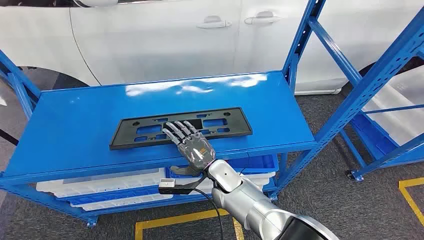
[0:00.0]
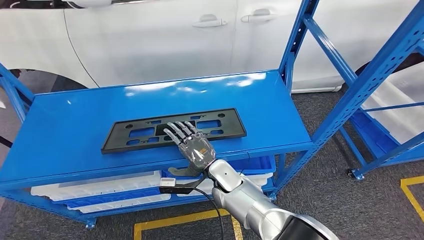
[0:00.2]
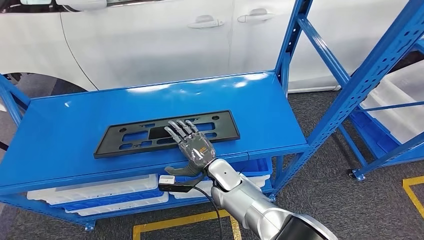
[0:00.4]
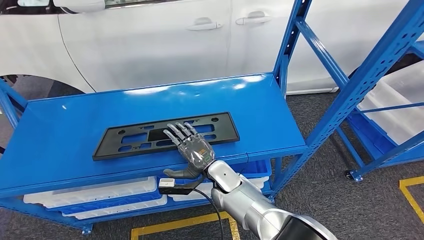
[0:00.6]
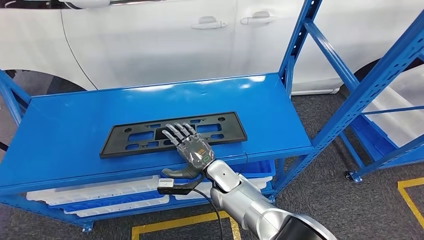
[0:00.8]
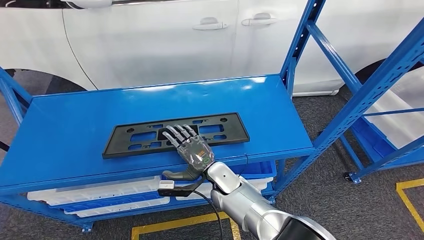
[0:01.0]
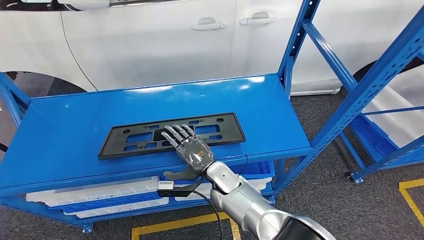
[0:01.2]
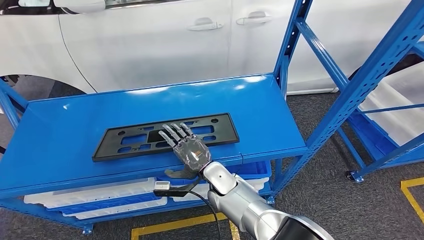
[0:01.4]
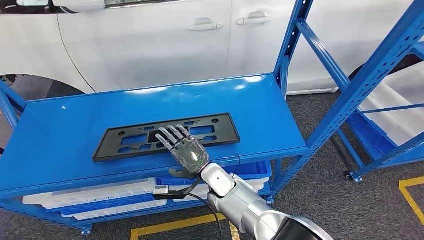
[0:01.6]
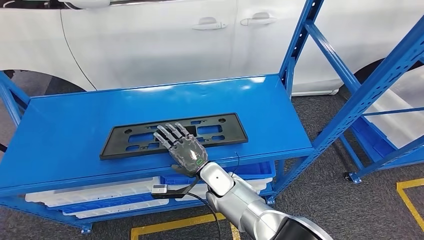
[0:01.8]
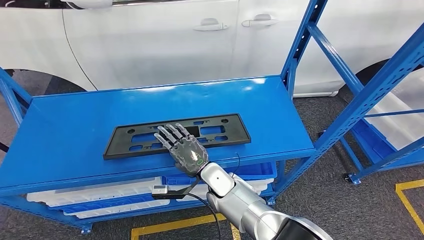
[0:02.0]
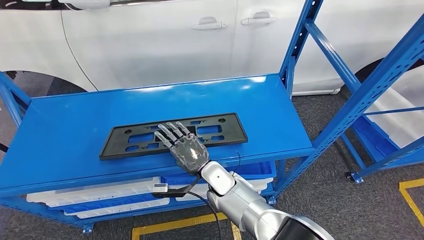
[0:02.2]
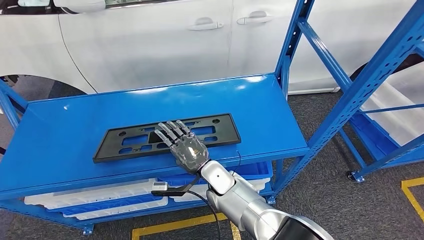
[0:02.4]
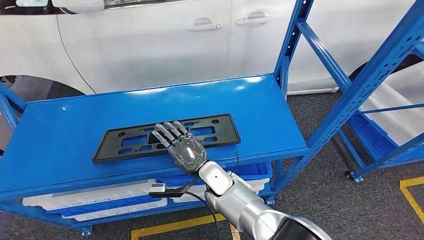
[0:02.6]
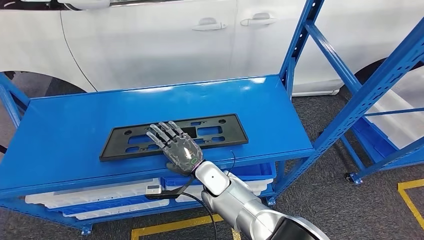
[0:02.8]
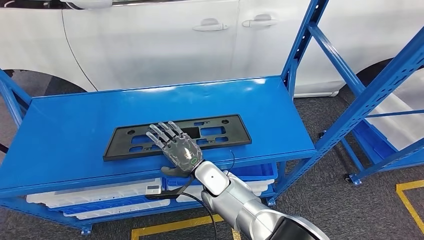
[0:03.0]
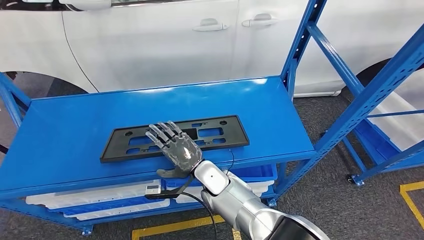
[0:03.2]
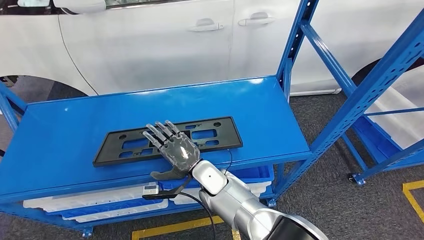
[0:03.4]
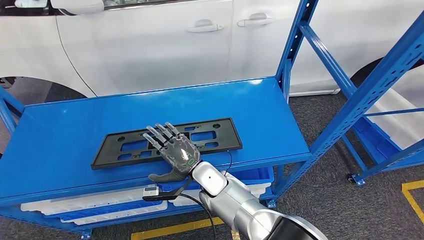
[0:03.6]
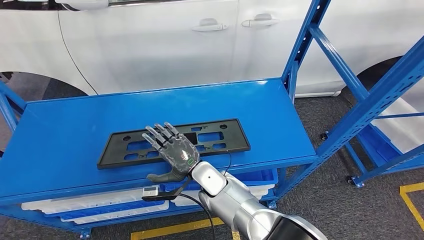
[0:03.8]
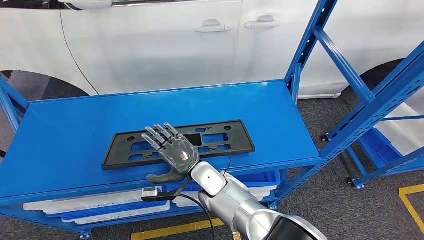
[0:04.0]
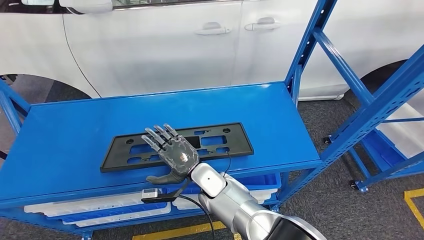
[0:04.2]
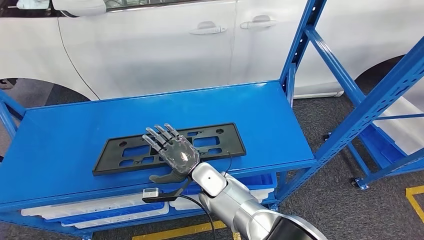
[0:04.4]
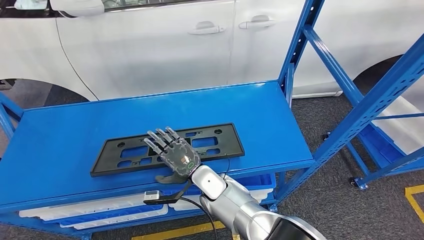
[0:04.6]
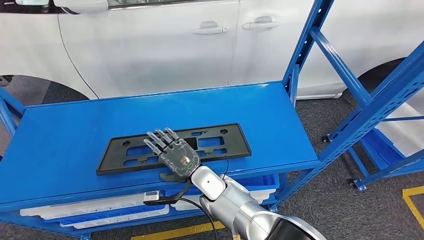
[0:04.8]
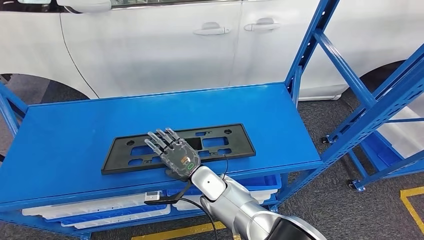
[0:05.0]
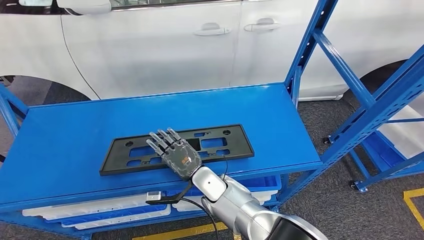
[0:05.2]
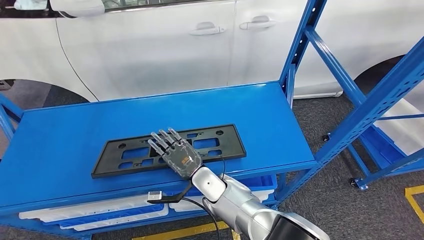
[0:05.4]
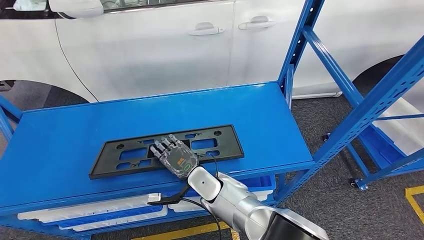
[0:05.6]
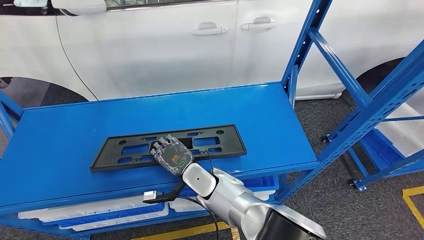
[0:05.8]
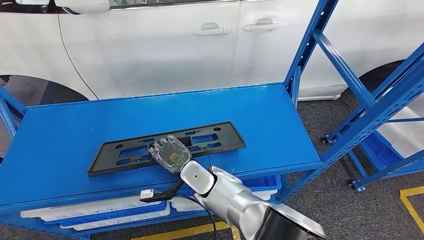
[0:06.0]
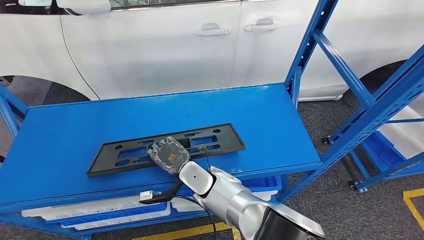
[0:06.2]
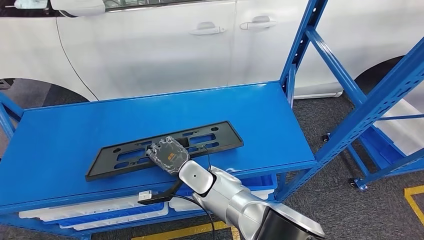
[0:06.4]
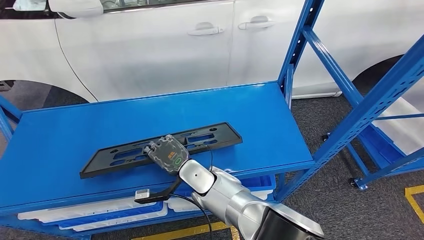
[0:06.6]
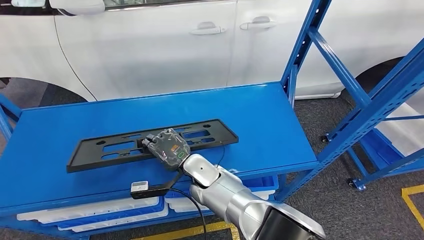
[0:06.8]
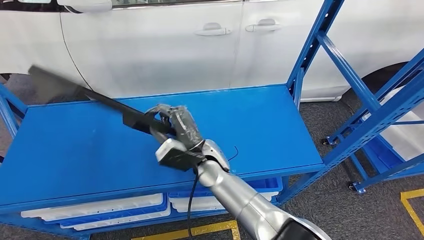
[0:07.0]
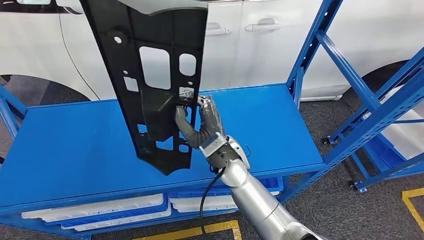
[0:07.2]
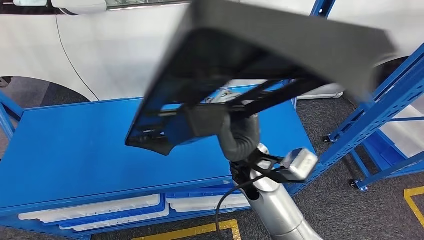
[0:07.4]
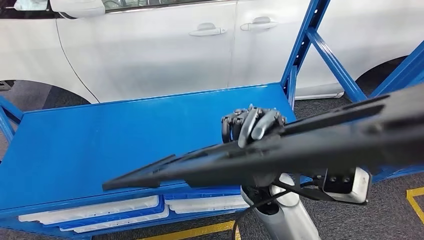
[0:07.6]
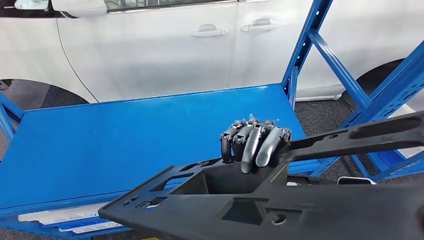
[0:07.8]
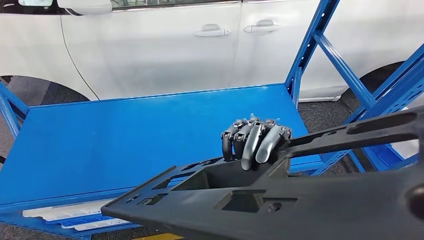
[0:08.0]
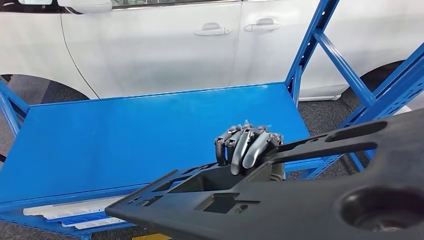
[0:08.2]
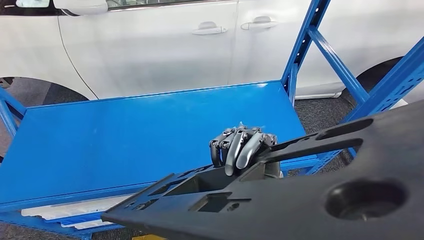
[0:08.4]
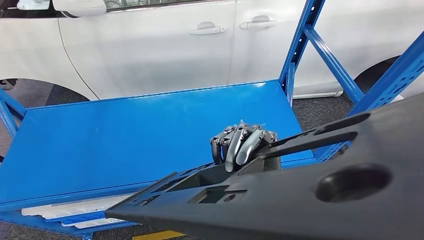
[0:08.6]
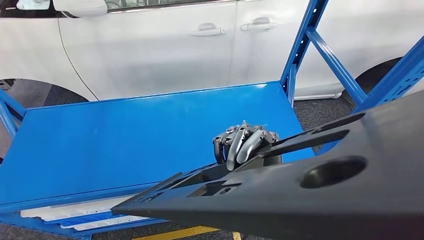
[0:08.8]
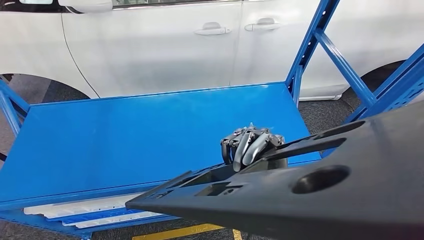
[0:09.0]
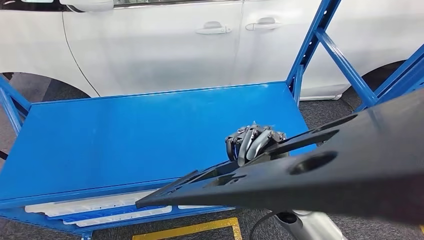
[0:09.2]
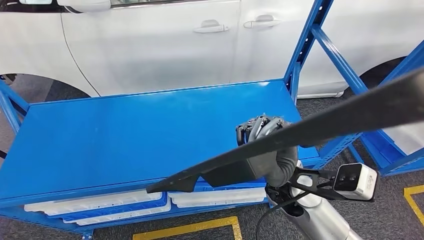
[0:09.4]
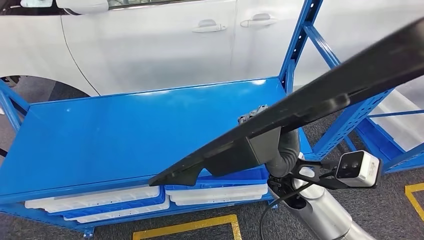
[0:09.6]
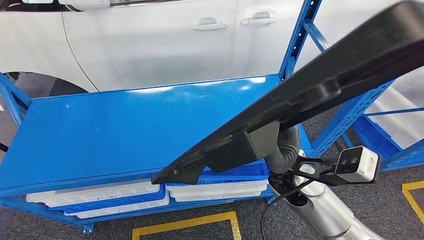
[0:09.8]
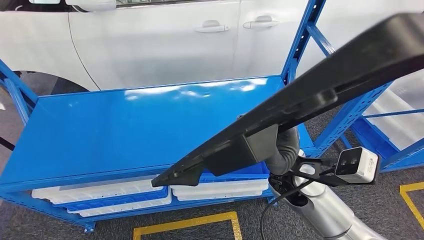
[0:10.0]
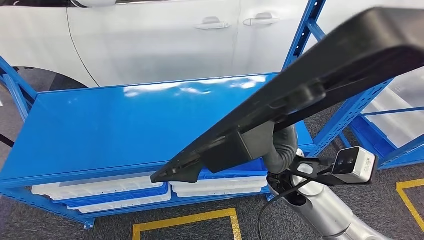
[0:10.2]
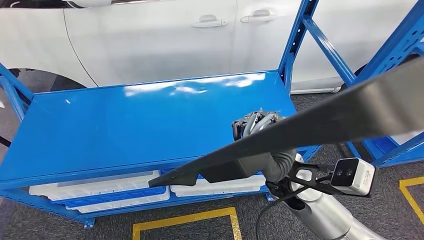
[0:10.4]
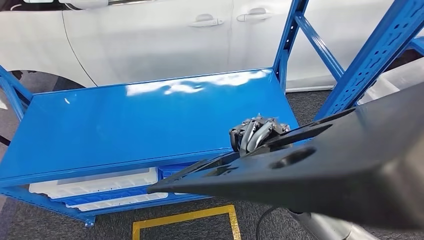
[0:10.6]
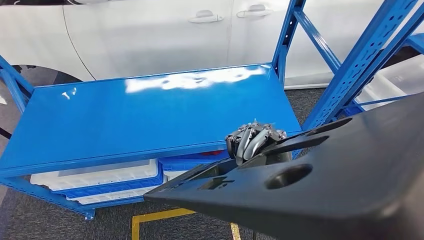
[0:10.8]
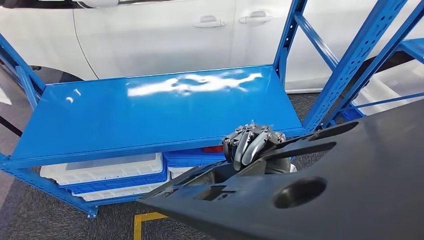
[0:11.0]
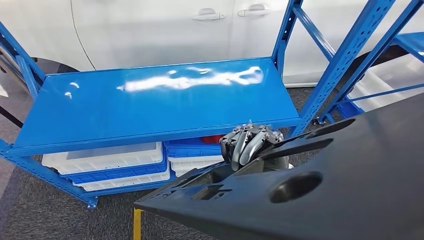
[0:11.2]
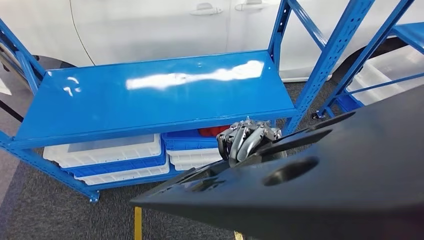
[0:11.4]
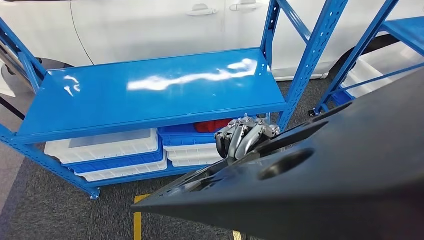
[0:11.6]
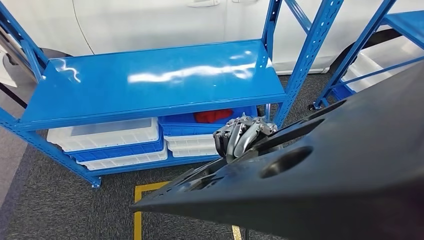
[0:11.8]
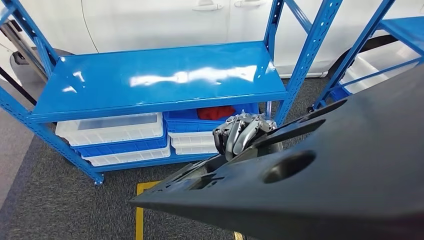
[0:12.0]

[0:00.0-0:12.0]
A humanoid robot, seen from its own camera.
Step, 0:00.0 to 0:10.0: Pick up the large material from the shelf.

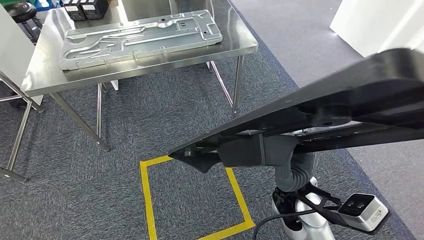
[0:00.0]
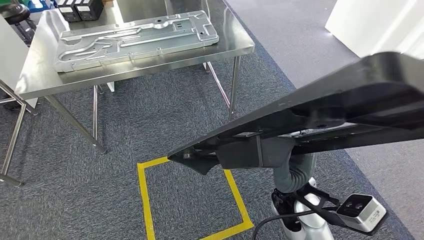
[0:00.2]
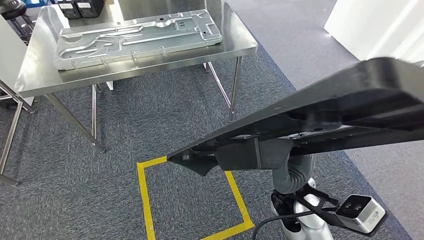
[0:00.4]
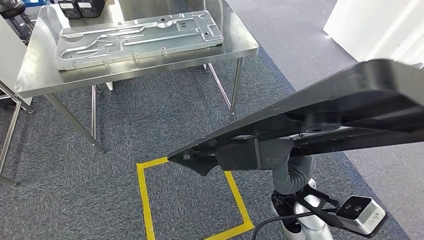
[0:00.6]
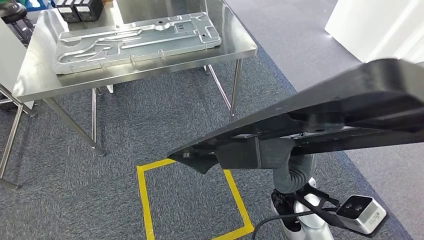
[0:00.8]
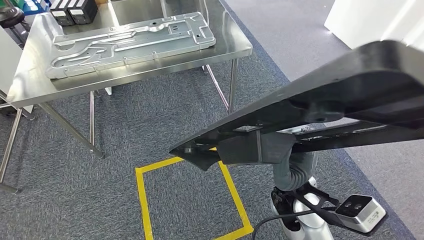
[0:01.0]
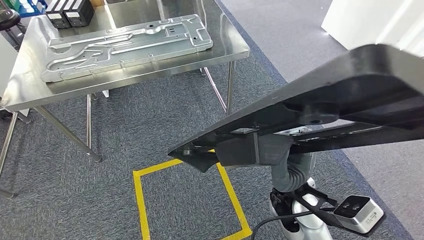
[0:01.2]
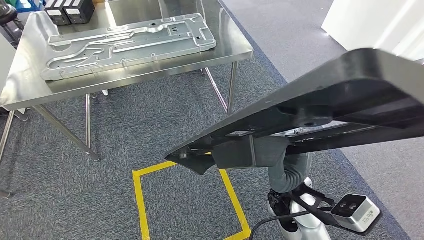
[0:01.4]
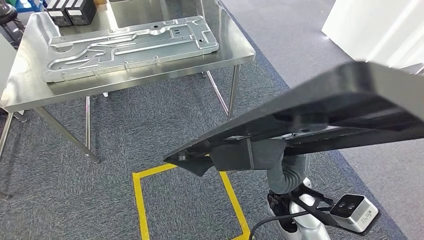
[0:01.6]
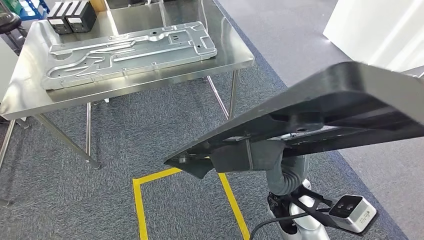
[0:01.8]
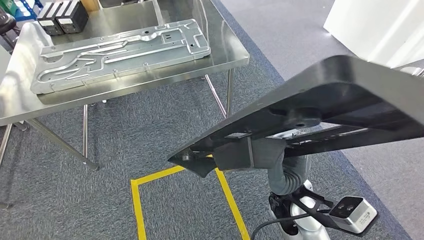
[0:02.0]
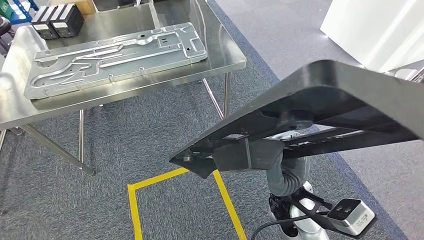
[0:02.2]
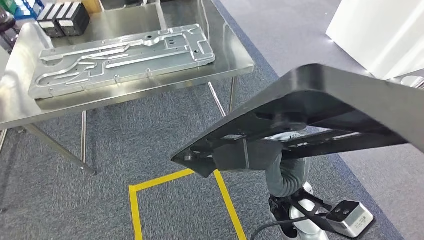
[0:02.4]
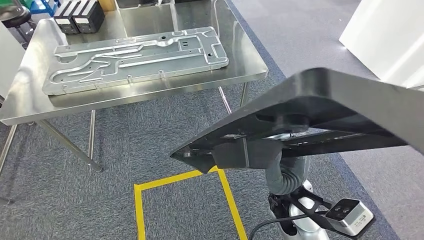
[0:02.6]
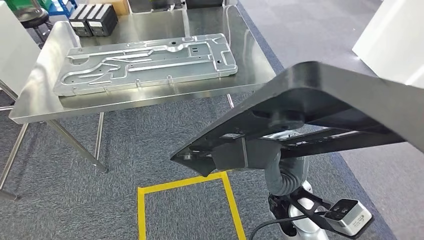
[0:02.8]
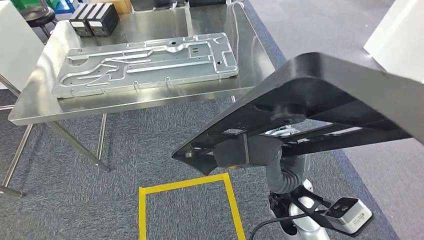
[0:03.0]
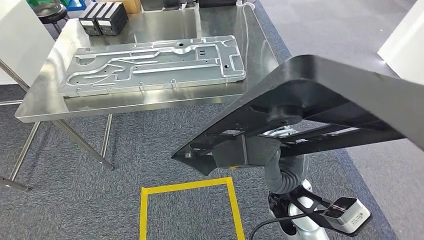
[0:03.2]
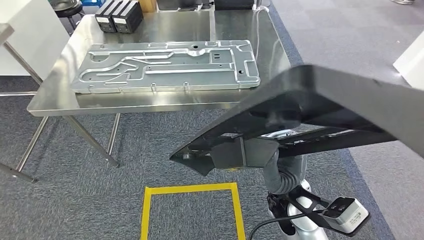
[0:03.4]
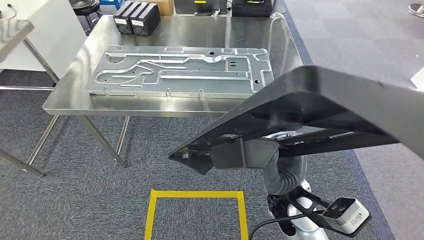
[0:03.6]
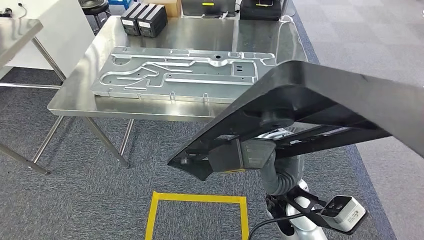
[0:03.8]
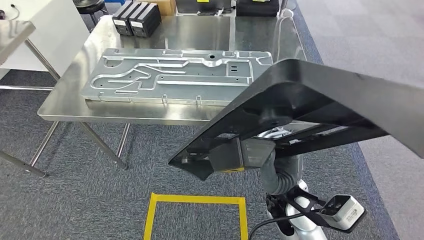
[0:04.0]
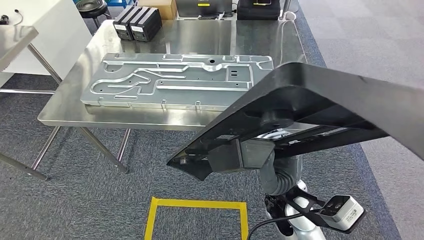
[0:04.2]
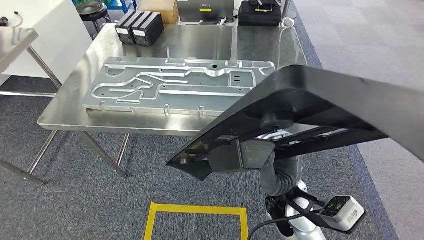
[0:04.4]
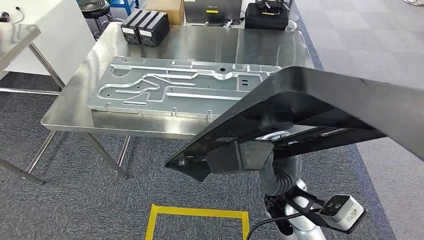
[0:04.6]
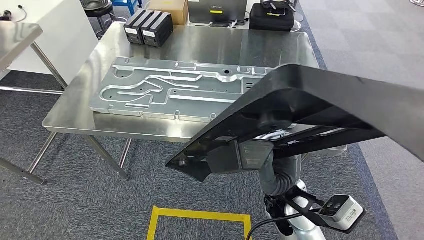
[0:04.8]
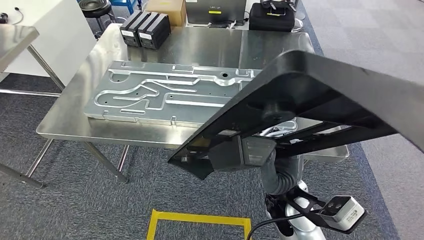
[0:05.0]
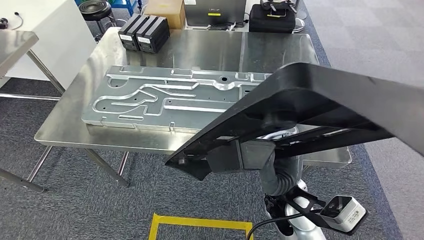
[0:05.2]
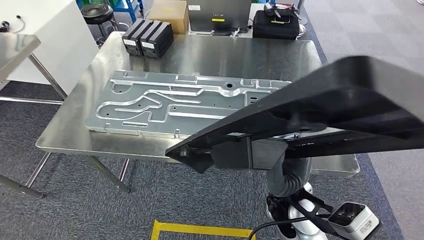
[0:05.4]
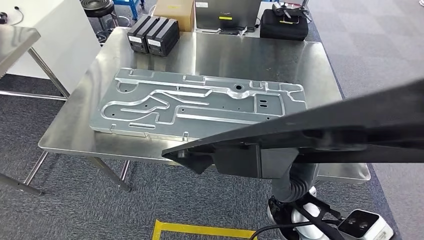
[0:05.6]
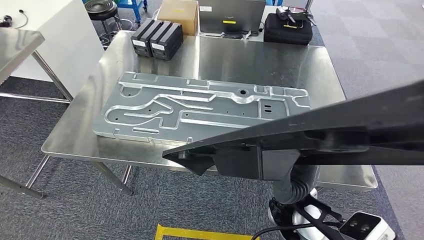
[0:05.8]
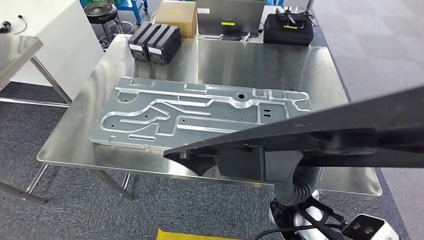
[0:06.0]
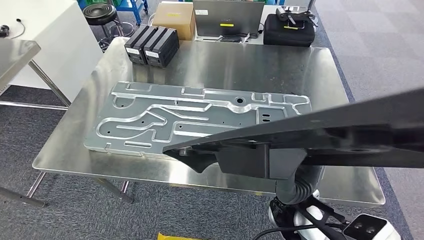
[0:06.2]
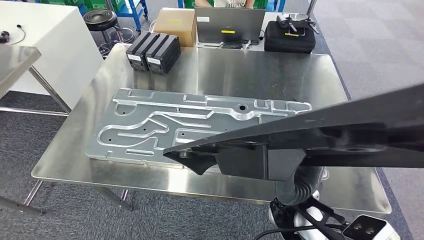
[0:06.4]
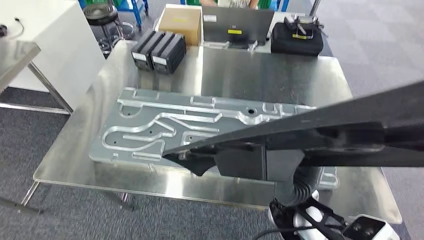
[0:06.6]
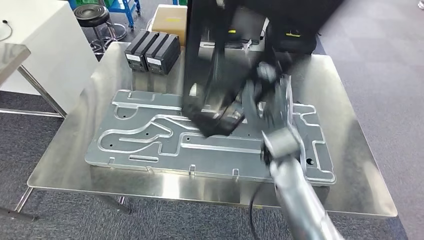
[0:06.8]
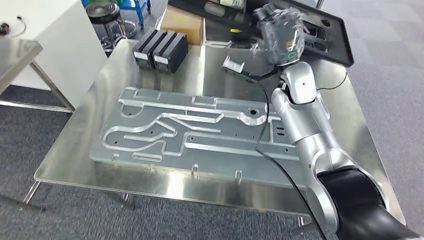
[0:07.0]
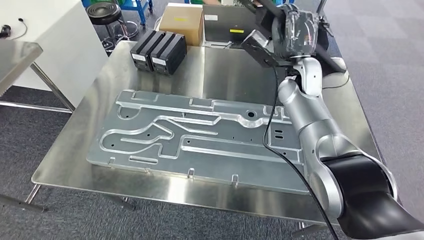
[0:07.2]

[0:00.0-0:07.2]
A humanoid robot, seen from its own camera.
Step, 0:00.0 to 0:06.2: Move the large material to the workbench.
